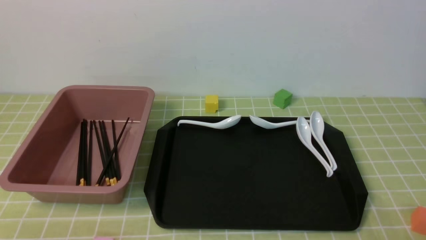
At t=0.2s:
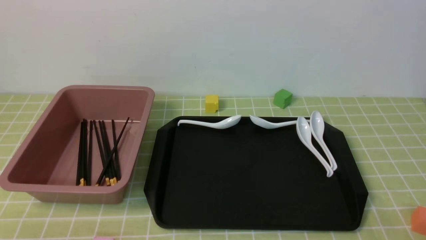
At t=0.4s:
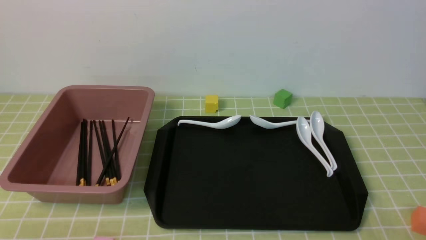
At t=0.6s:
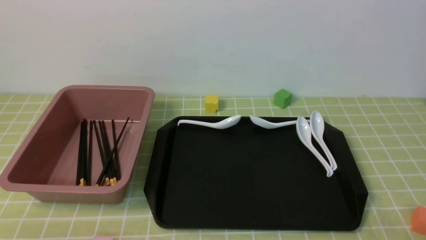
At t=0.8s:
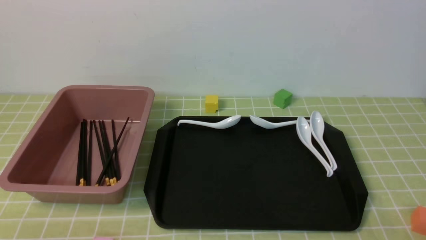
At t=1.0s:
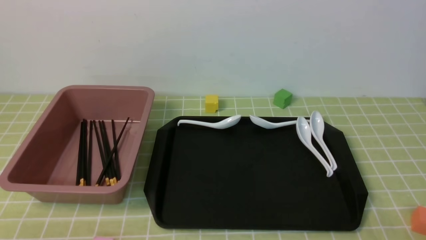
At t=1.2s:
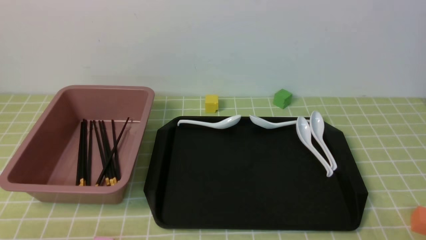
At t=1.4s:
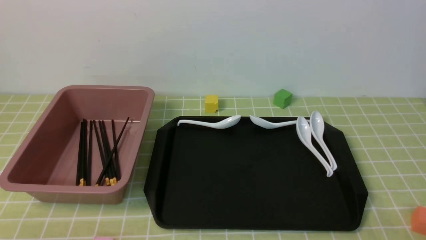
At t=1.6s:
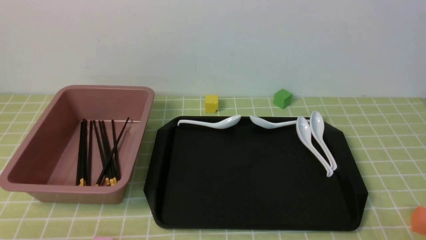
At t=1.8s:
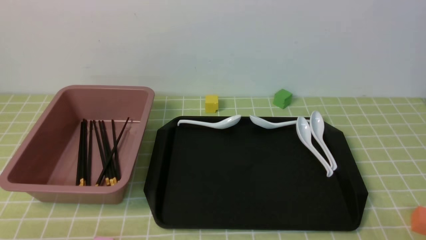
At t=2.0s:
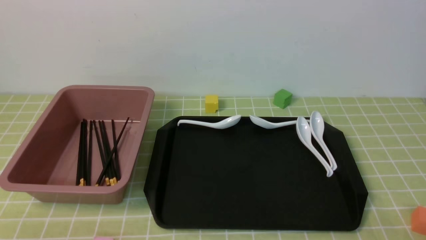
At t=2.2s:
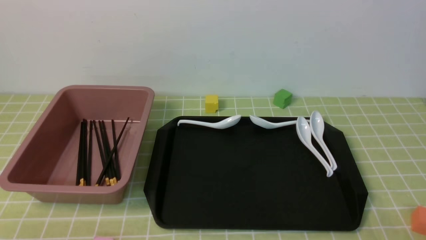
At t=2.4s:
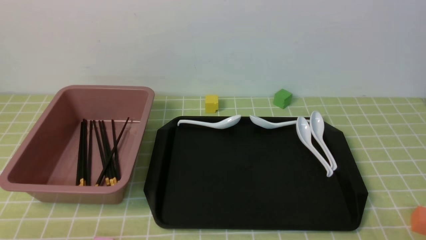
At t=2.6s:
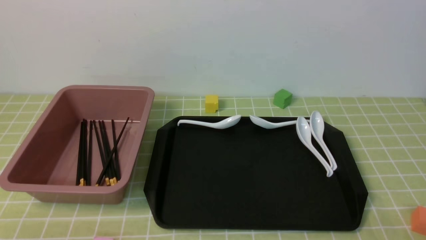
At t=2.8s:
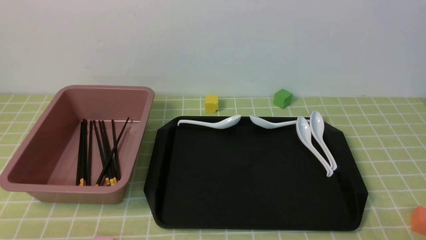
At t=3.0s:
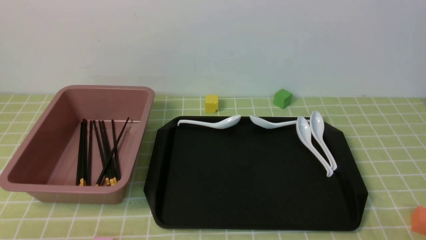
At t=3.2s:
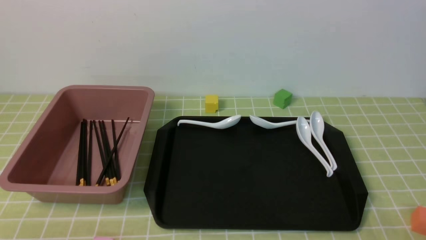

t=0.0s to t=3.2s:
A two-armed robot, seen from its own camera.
t=1.6s to t=3.2s: Both grippers stay about where they are.

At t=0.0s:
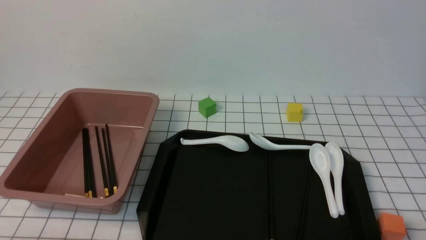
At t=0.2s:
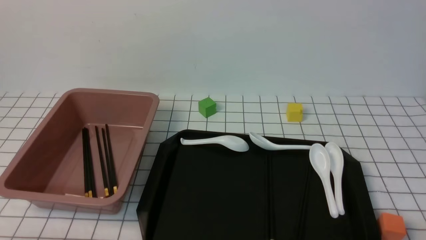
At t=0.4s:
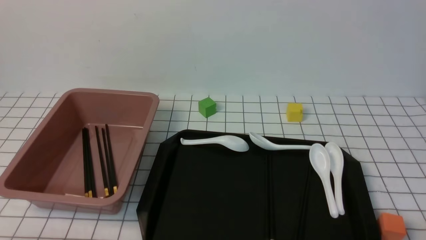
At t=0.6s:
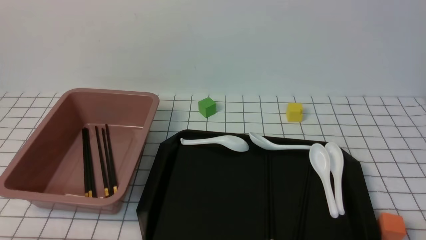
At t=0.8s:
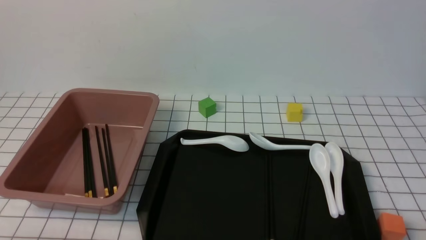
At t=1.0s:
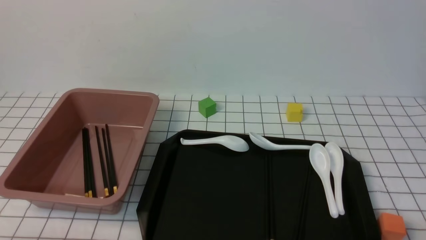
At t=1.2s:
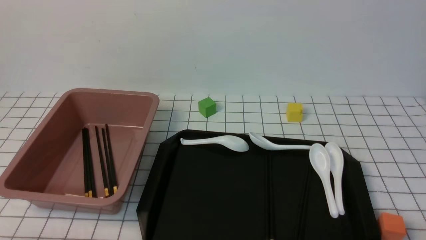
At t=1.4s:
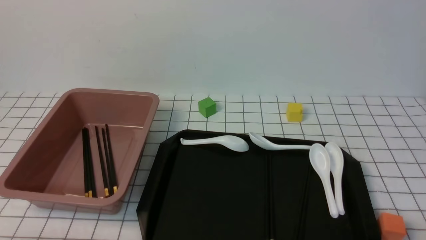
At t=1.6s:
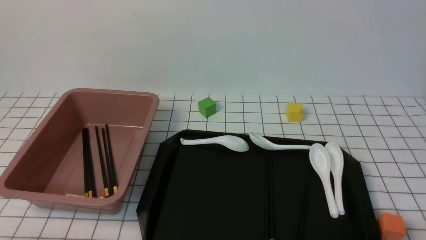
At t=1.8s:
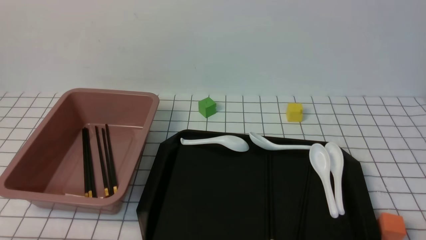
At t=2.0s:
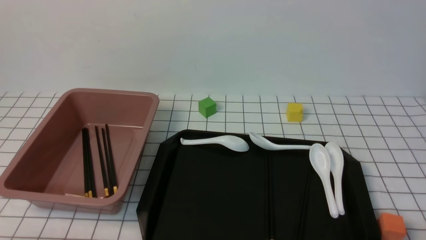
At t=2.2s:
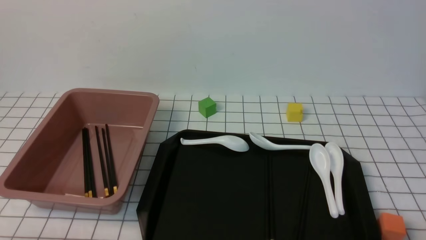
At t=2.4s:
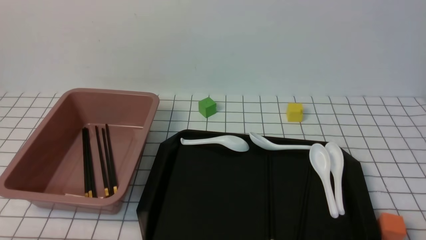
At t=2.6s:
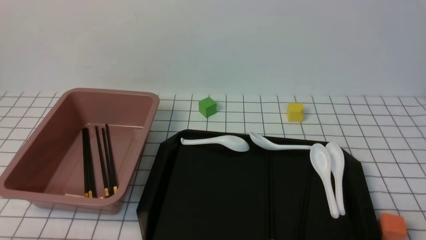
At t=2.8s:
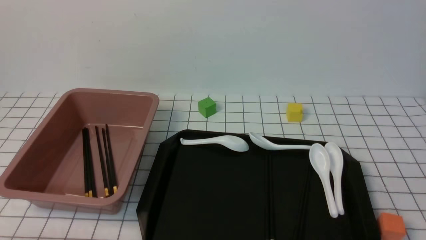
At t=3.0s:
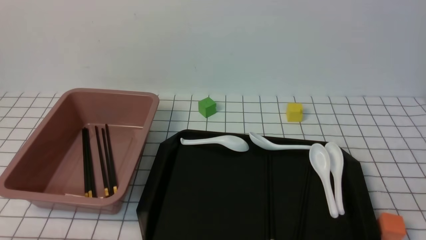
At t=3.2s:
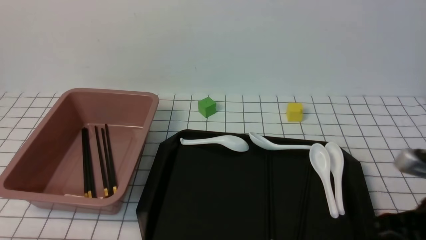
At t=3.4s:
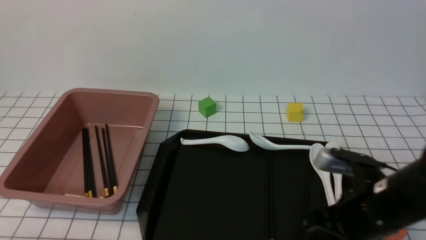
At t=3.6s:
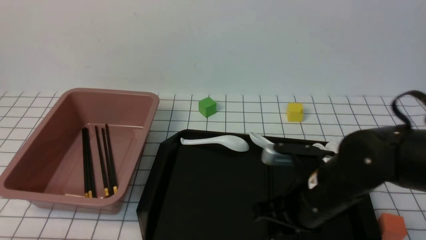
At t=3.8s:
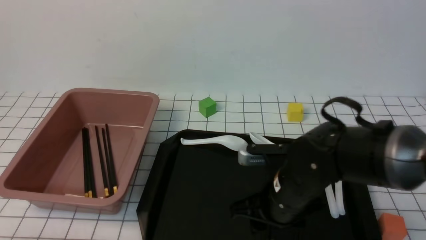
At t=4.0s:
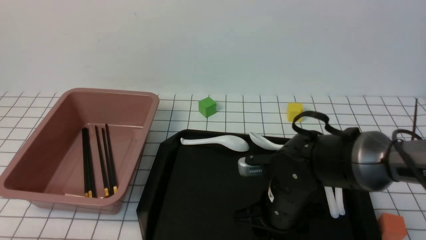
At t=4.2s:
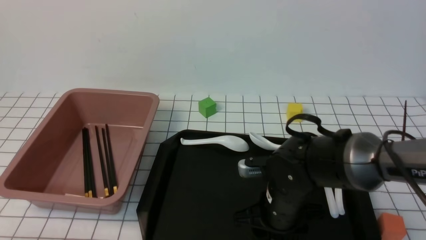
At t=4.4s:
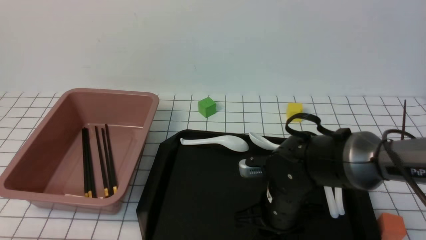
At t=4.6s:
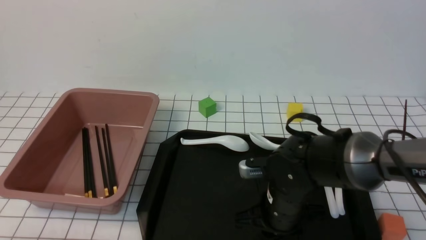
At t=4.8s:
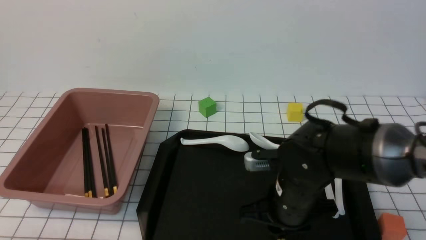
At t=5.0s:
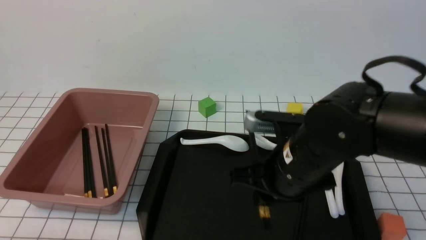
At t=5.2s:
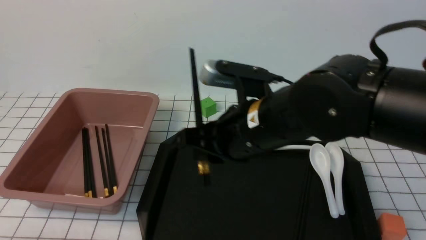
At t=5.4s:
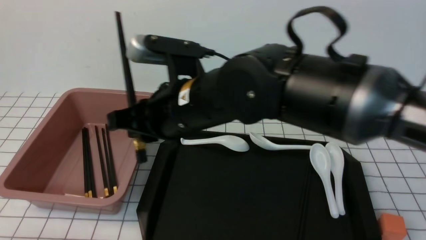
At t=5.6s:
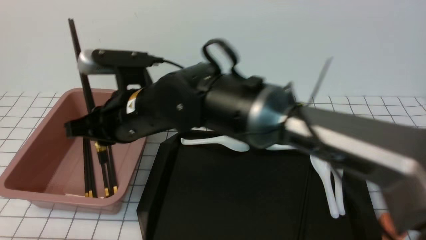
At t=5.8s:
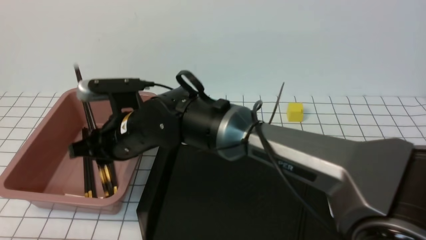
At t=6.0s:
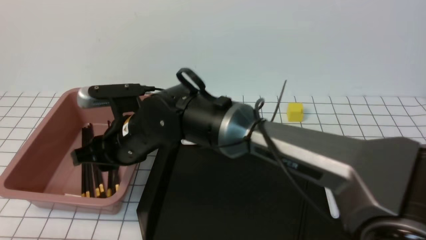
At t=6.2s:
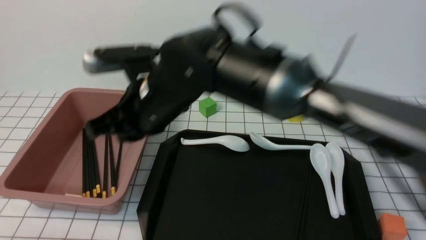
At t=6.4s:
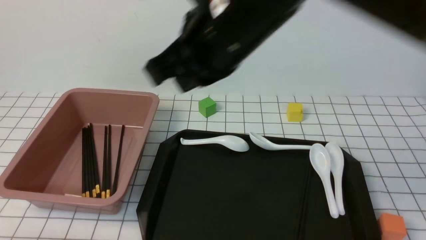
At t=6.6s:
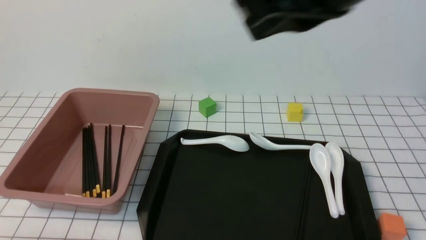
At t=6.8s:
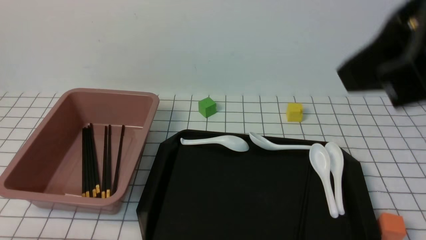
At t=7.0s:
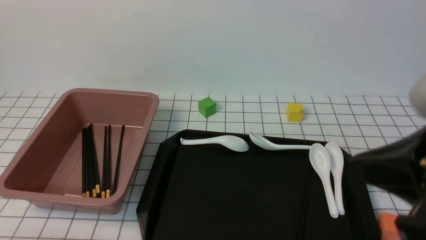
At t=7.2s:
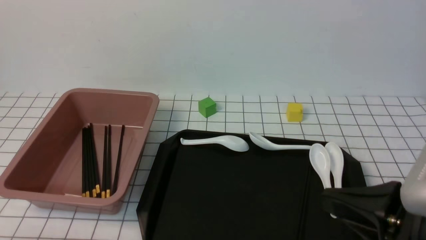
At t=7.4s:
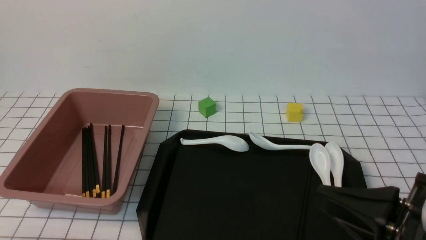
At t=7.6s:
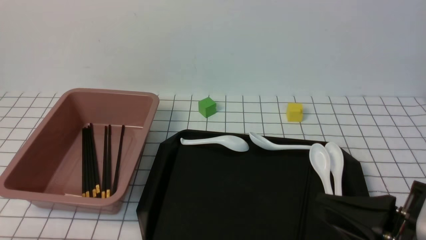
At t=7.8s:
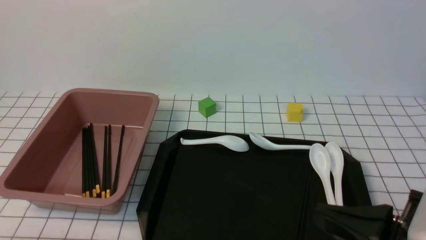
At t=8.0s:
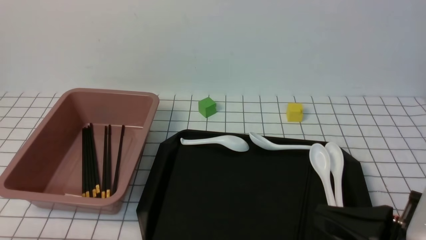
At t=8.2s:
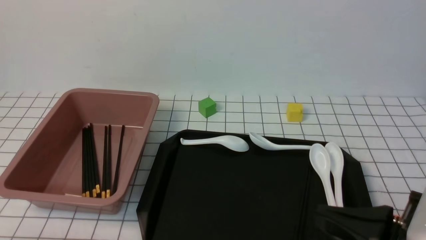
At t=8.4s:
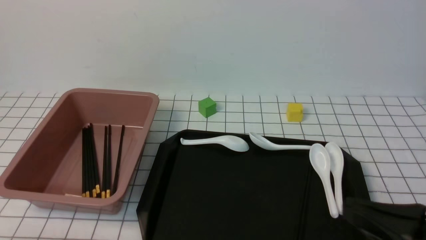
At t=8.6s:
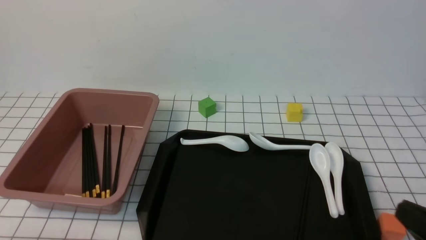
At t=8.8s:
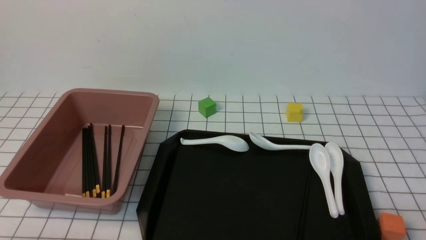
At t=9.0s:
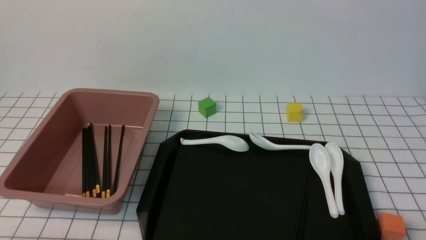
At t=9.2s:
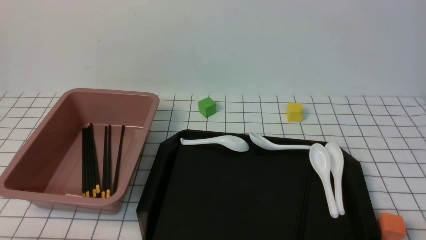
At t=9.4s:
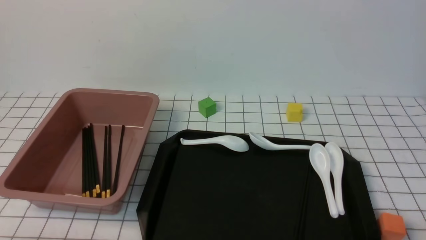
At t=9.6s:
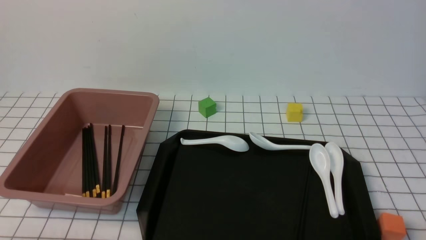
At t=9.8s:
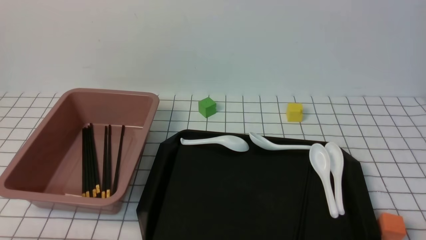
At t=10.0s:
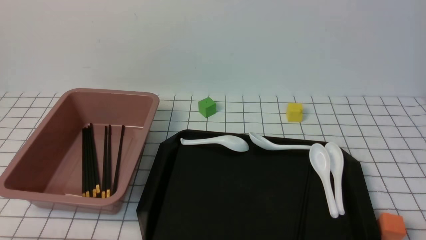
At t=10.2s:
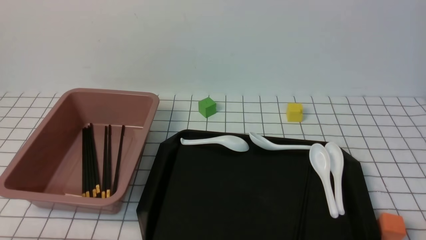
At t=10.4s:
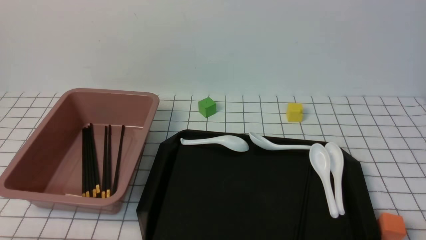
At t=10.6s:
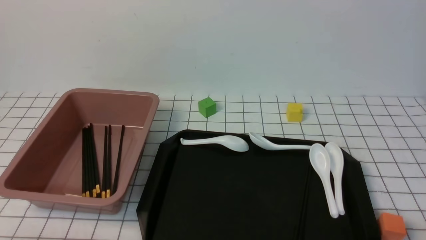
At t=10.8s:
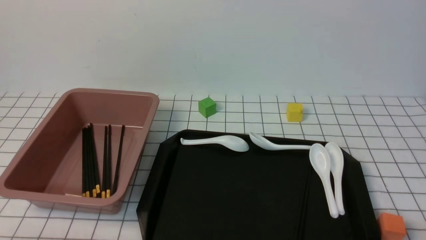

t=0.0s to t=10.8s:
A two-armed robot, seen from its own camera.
Step, t=0.0s to t=4.8s: use the right arm to grab a pair of chopsticks.
Step, t=5.0s to t=6.2s: use the right arm to put the chopsticks into the lunch box.
t=0.0s to t=1.6s: Neither gripper changes place.
t=3.0s to t=4.6s: The right gripper is displaced to the left, forward and downward by approximately 25 cm, and opens its fingers.
t=4.6s to t=6.2s: The right gripper heads upward and to the left, covering approximately 25 cm.
t=6.2s to t=7.8s: The right gripper goes roughly 30 cm to the right and backward.
t=7.8s to t=9.2s: The right gripper travels to the right and downward by some 15 cm.
t=9.2s to t=10.8s: The two grippers keep their place.

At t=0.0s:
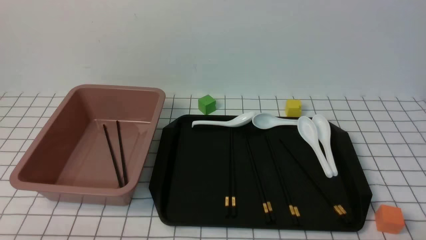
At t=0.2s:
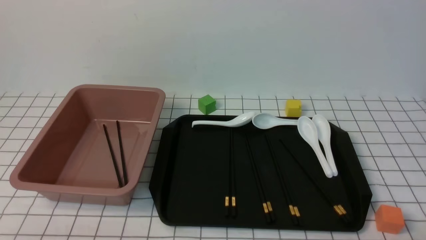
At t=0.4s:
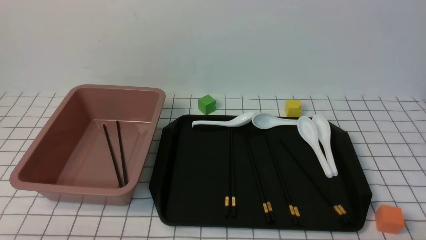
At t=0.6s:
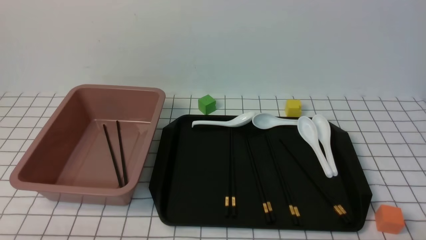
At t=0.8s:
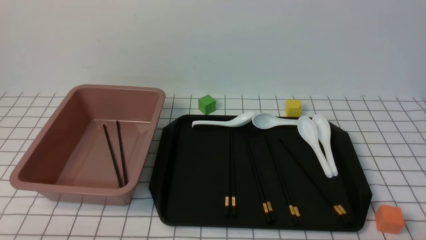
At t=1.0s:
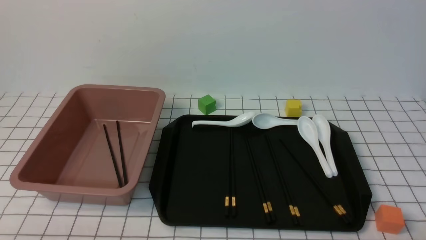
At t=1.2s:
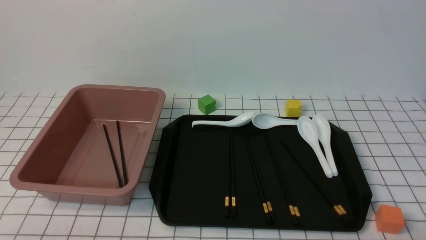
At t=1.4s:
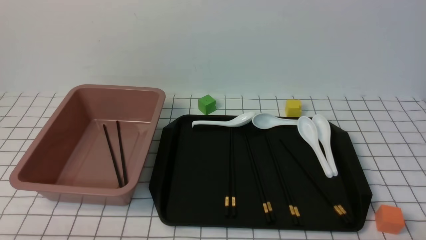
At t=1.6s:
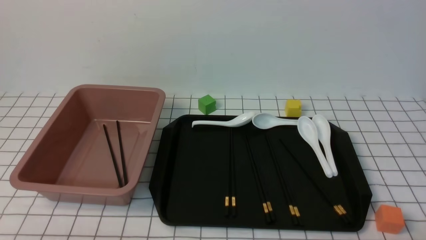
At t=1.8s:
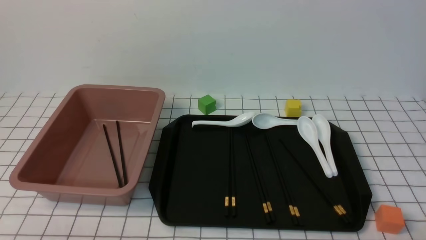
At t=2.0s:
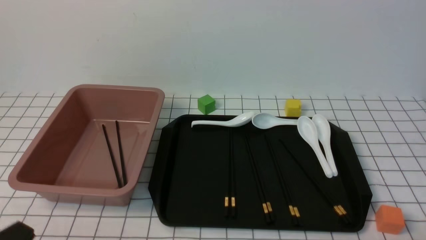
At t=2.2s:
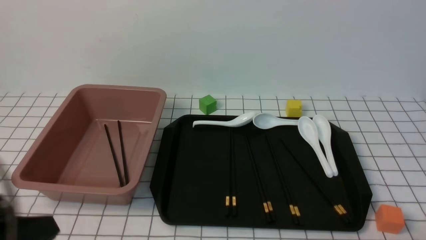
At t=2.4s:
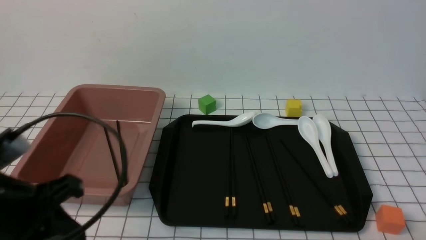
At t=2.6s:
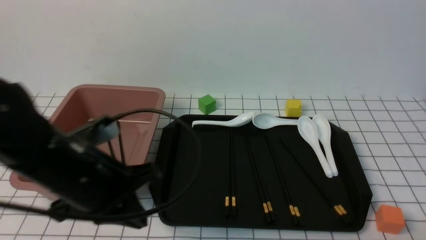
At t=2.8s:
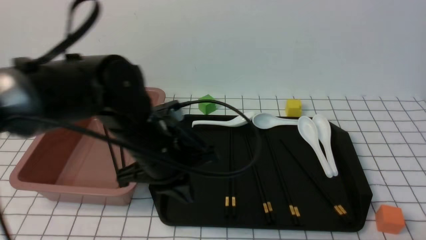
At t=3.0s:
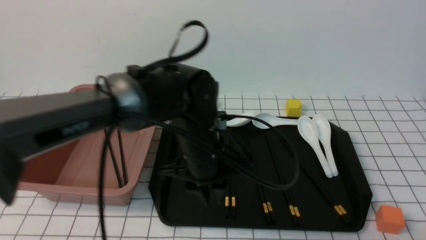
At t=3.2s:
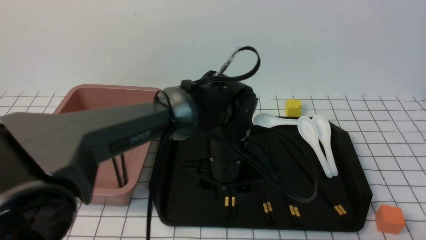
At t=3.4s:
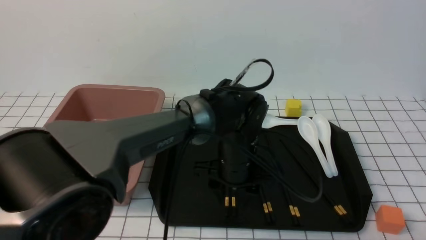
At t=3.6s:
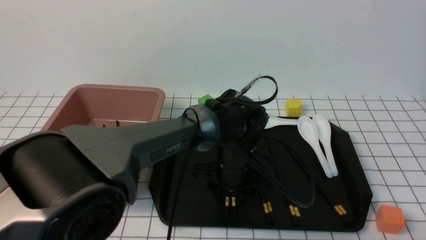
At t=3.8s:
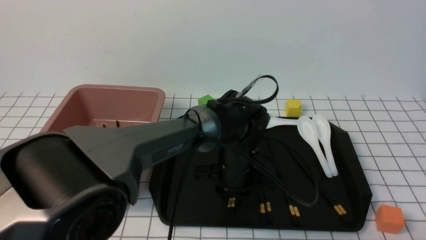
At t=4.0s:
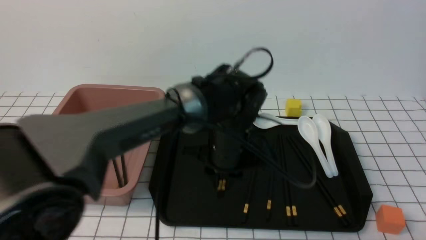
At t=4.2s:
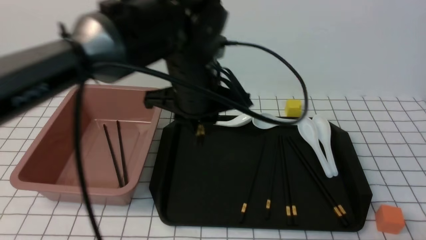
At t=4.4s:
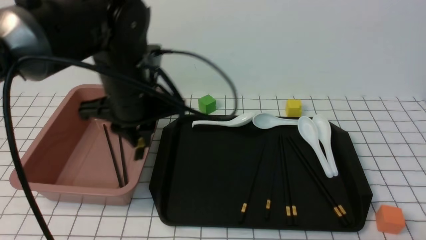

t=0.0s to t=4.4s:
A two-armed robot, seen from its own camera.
Step, t=0.0s to t=4.2s: use the left arm to grab a pair of chopsticks.
t=1.4s to t=3.0s: The left gripper shifts some 35 cm forward and to the right, and closes and opens again.
t=3.0s to t=4.4s: The left gripper heads to the left and upward, covering approximately 10 cm, and opens, then closes again.
